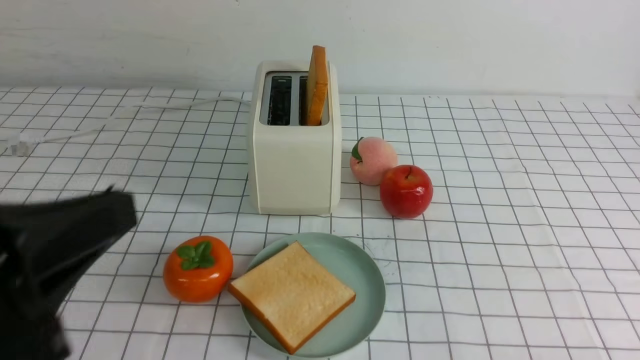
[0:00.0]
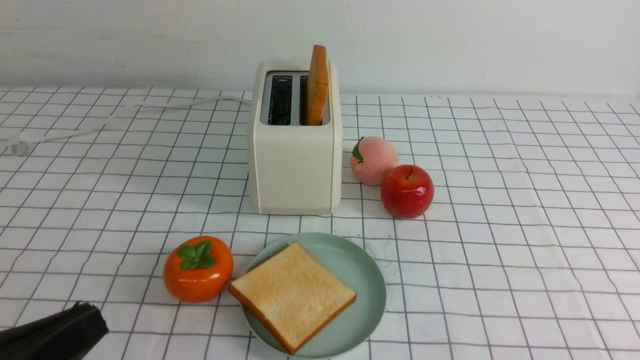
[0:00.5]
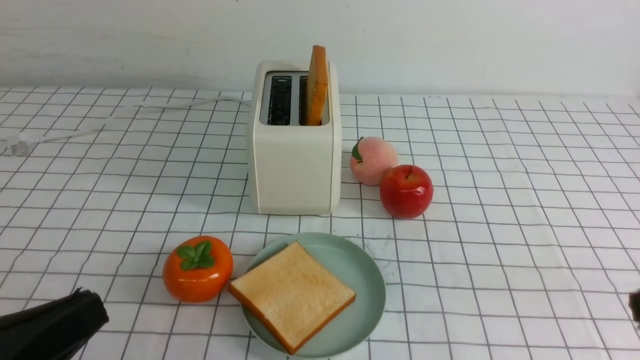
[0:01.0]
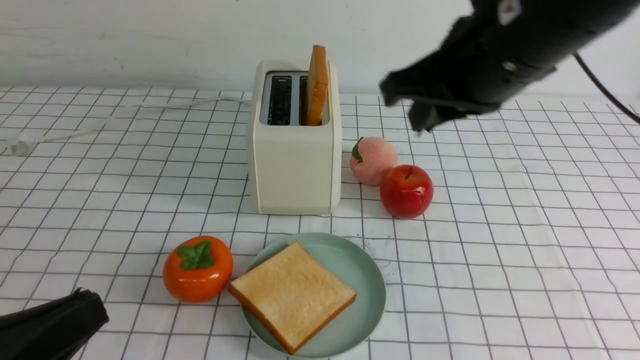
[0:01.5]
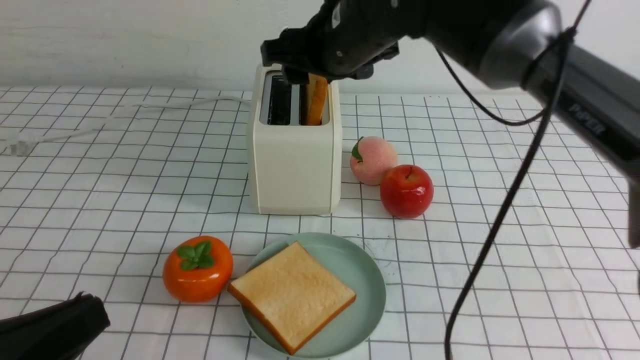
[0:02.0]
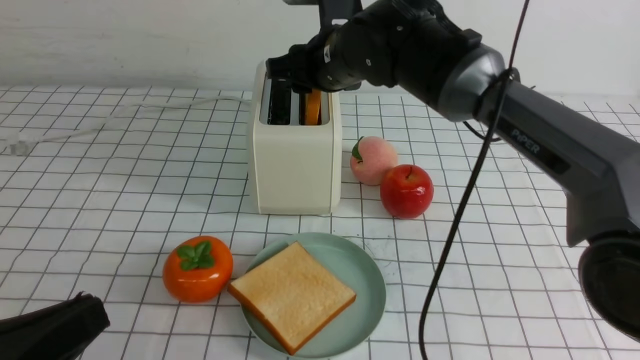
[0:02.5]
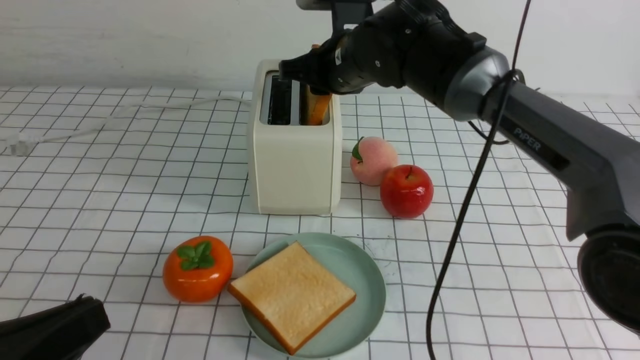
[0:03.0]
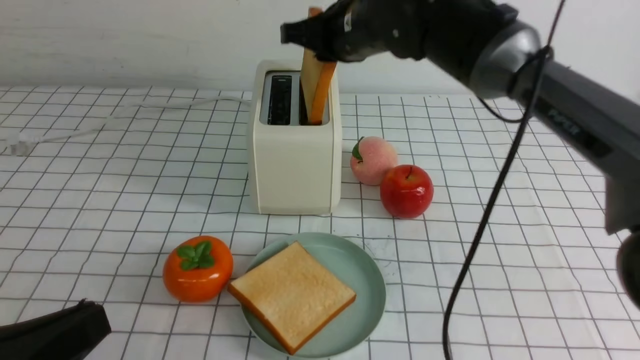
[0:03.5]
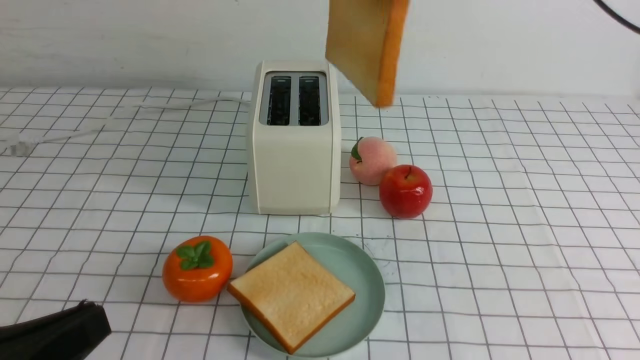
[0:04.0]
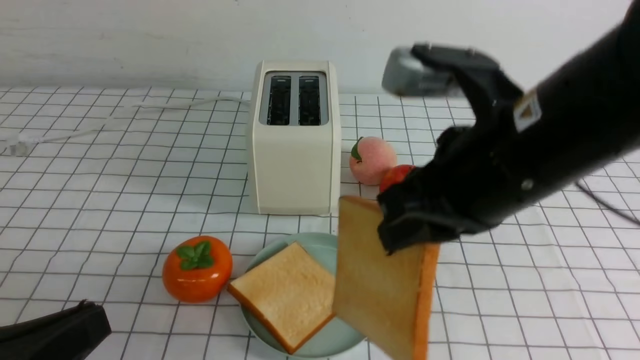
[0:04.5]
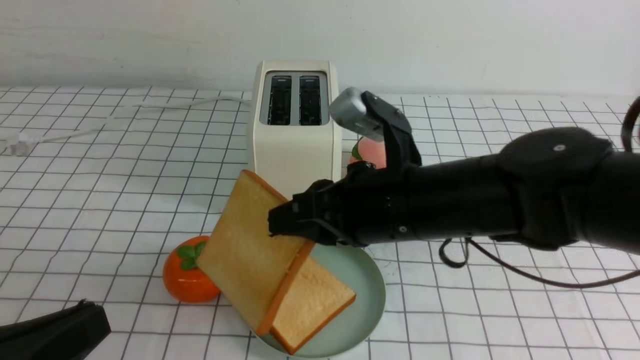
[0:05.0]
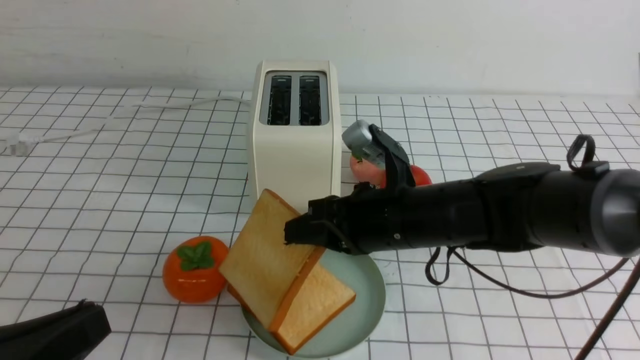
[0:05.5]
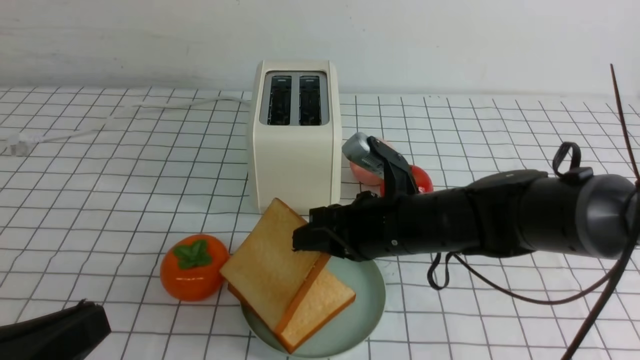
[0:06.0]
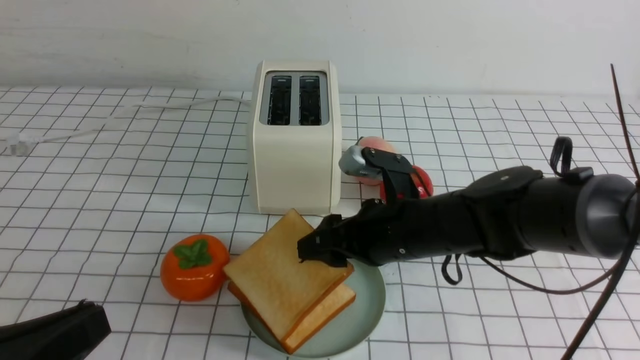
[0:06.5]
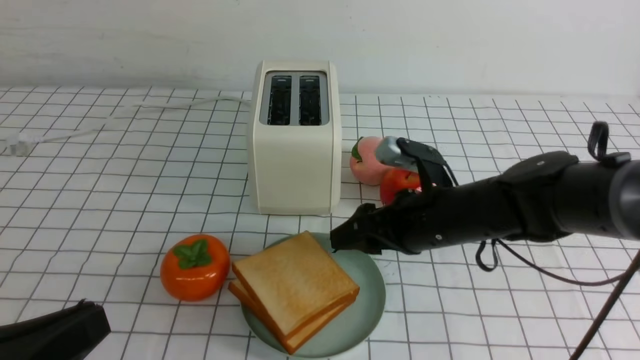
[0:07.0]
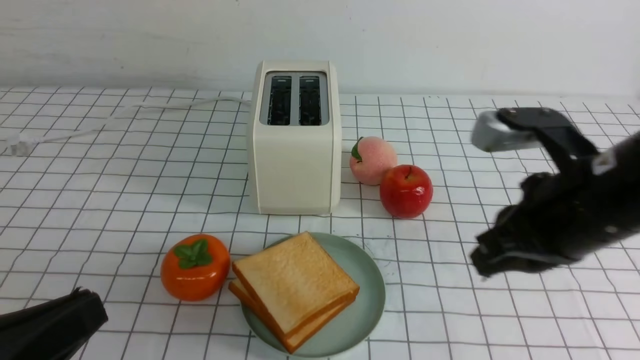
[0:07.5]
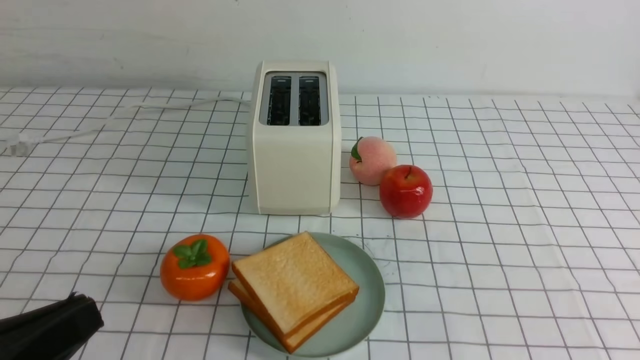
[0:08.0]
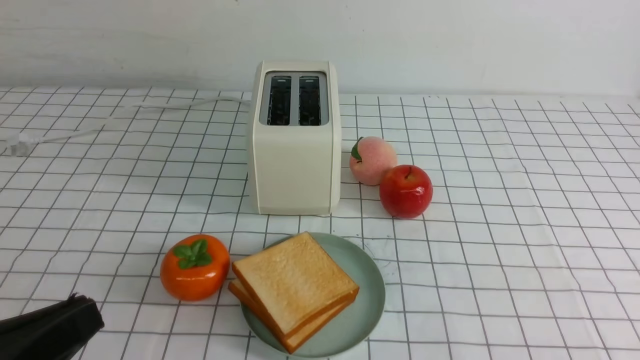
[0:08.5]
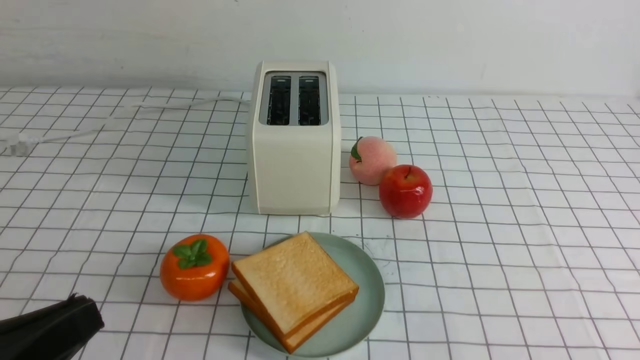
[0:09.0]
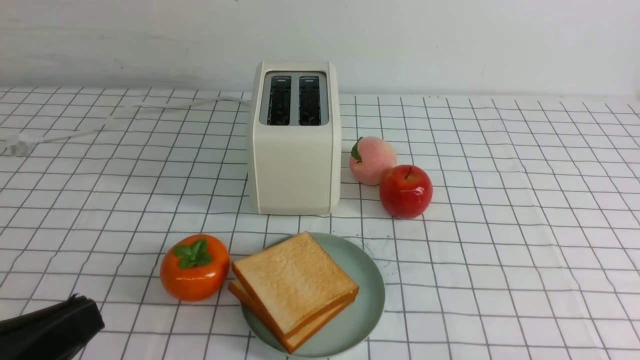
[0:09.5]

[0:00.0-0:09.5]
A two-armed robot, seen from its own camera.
Task of the whole recording: take toasted bread from bread machine on white checkered table place on plate.
Step, 0:00.0 to 0:03.5: use the right arm to take out a slice of bread.
Step, 0:04.0 to 0:07.0: use the right arm to put a slice of bread into the plate.
0:00.0 to 0:02.0: The right gripper moves forward, to the left and upward, some 50 cm, and opens up; the left gripper moves roughly 5 cm.
0:02.0 to 0:04.0: The right gripper is displaced upward, backward and to the right by about 15 cm, and closes.
0:04.0 to 0:05.5: The right gripper is displaced downward by about 25 cm.
0:05.5 to 0:07.5: The right gripper goes some 15 cm to the right, upward and backward, and opens, then closes once more.
0:07.5 to 0:09.5: The right gripper travels backward, downward and to the right by approximately 25 cm.

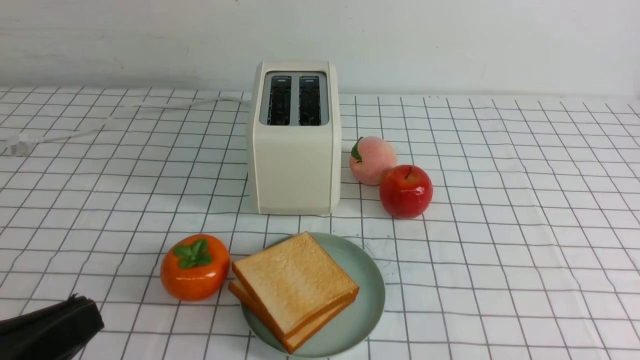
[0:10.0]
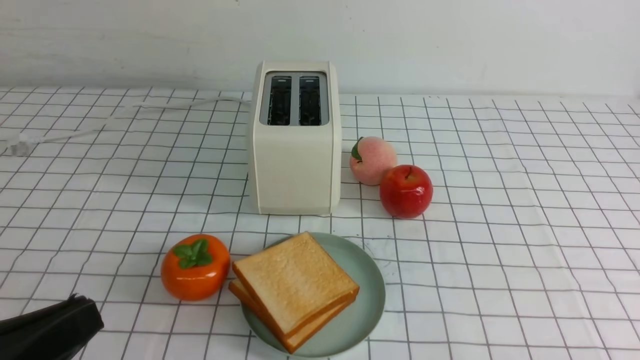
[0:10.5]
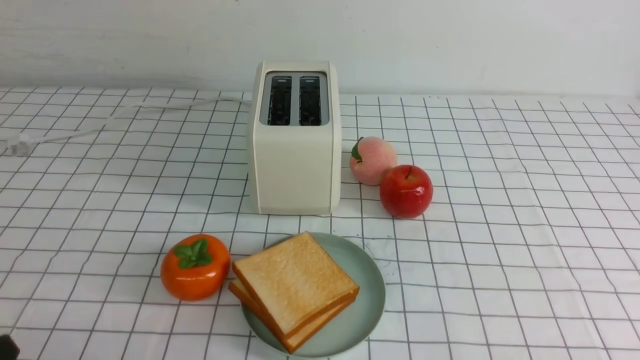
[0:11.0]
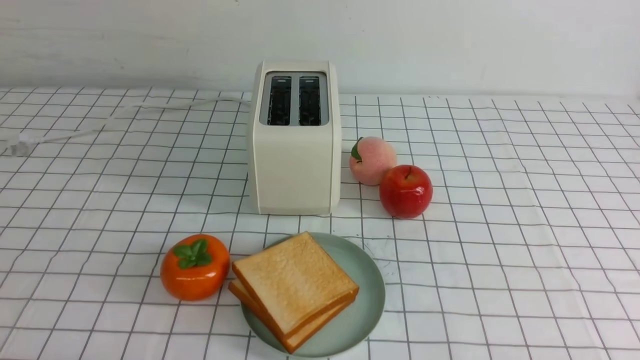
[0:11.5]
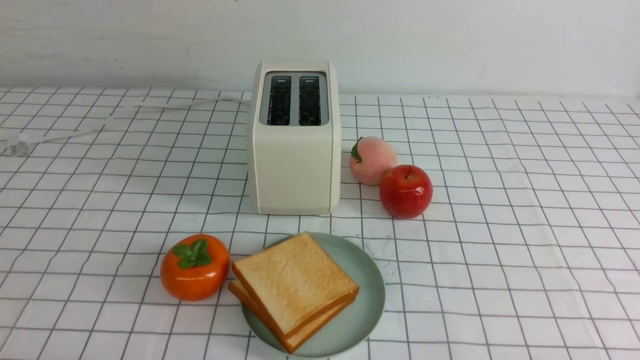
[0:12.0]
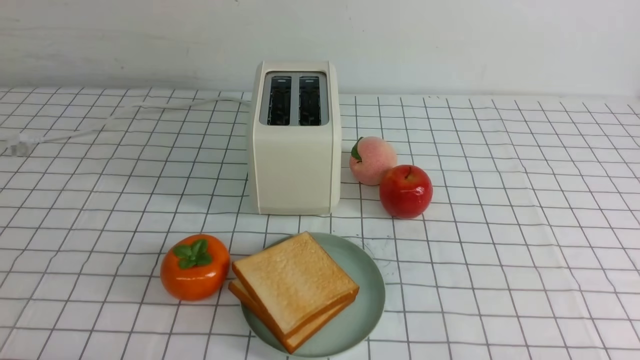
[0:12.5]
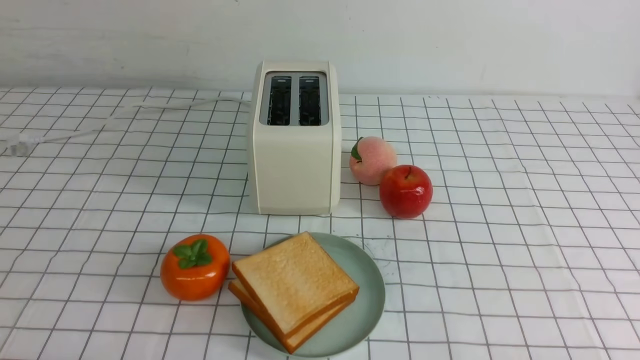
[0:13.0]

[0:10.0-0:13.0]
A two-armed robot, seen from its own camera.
Task of the whole recording: take toasted bread from bread machine on white checkered table place on plate.
0:10.0 to 0:11.5: The left gripper shifts some 10 cm downward.
0:11.5 to 0:13.0: Both grippers stay about where they are.

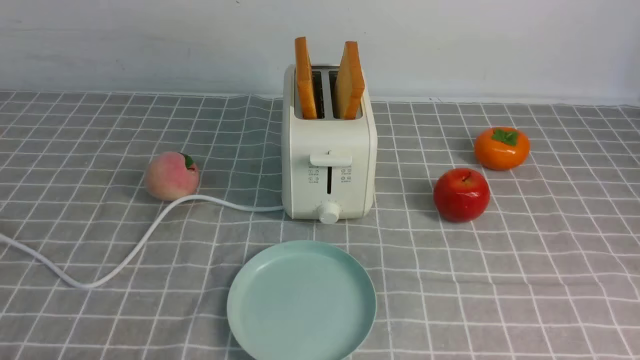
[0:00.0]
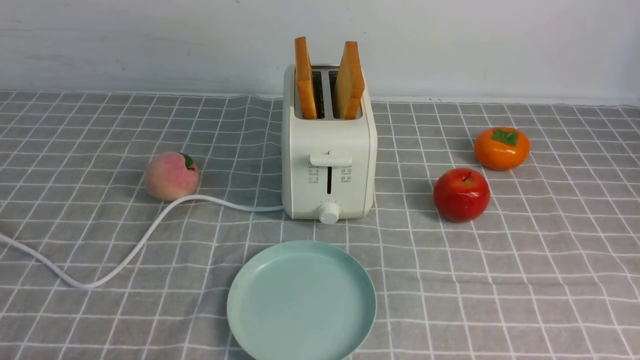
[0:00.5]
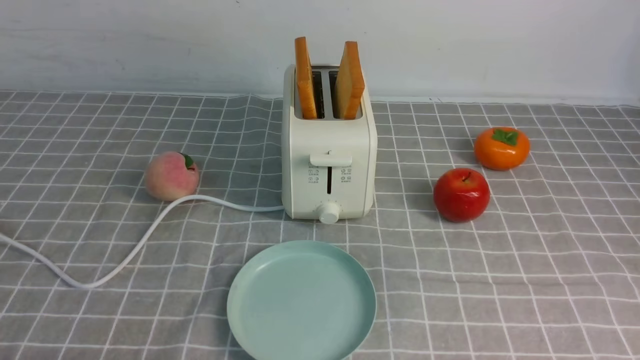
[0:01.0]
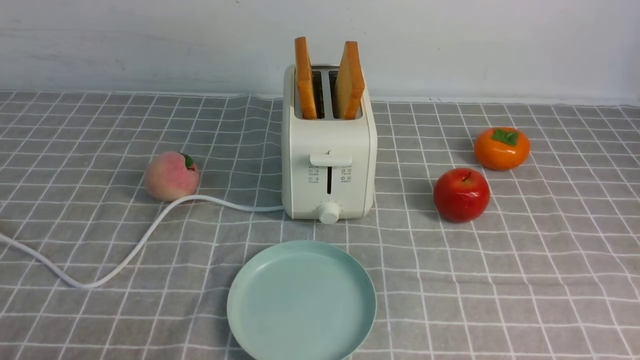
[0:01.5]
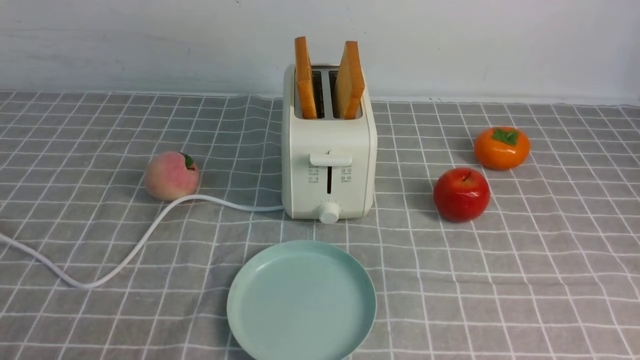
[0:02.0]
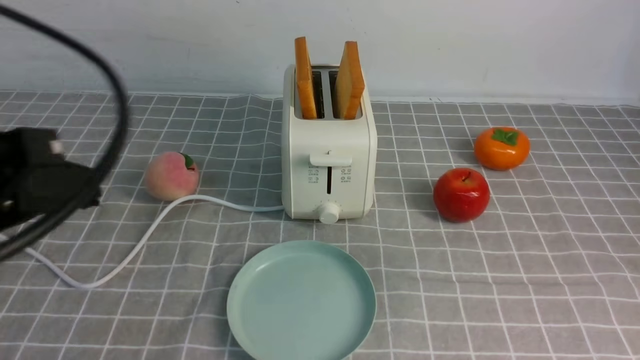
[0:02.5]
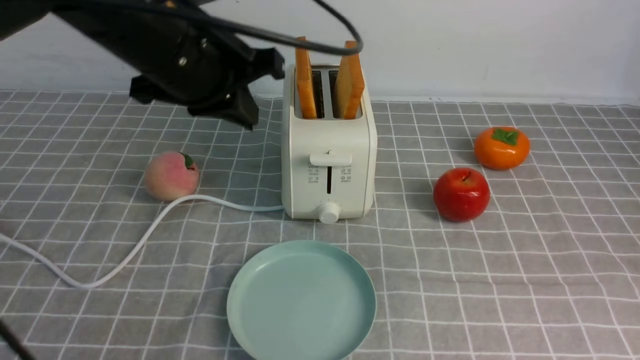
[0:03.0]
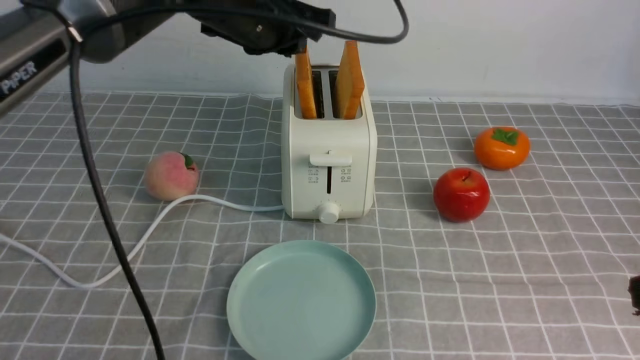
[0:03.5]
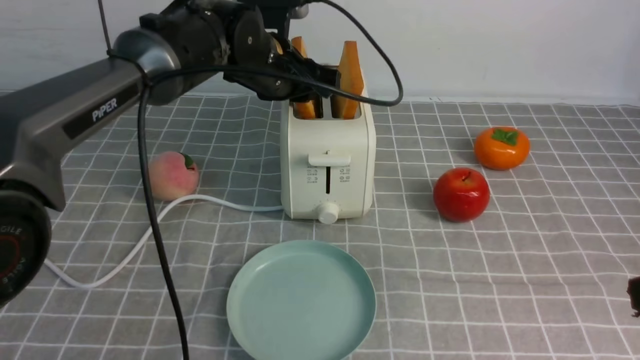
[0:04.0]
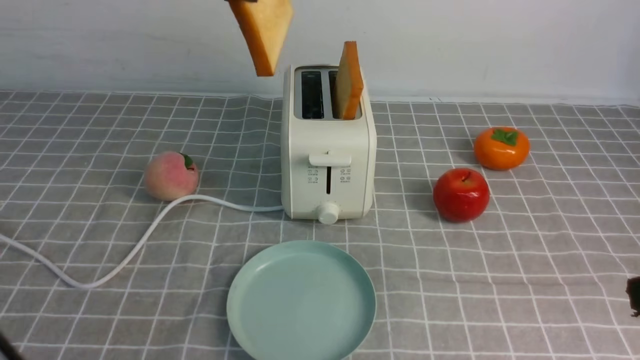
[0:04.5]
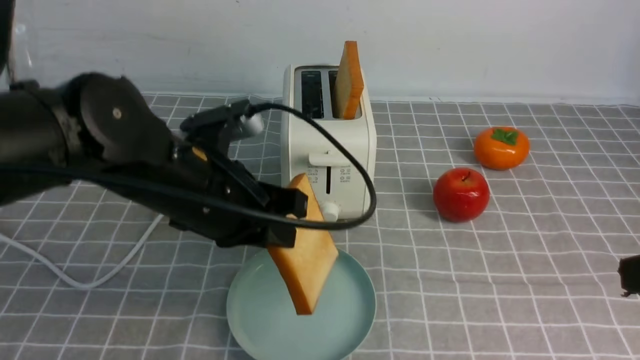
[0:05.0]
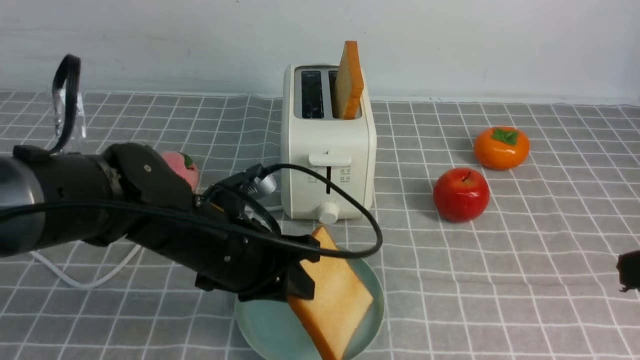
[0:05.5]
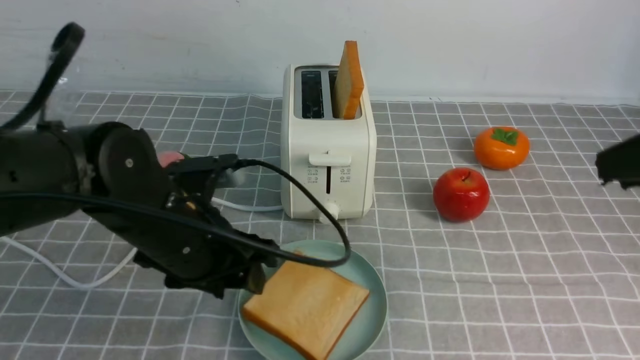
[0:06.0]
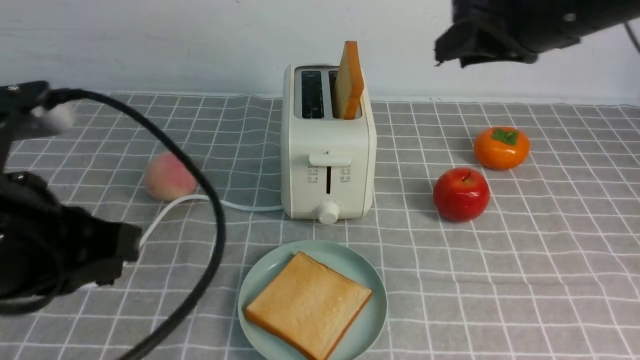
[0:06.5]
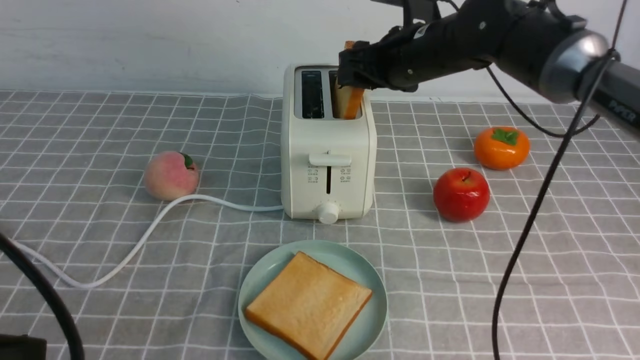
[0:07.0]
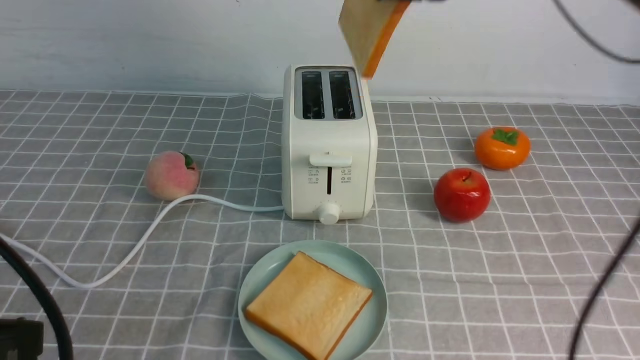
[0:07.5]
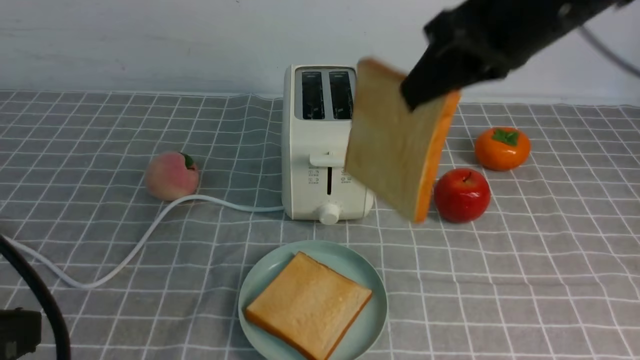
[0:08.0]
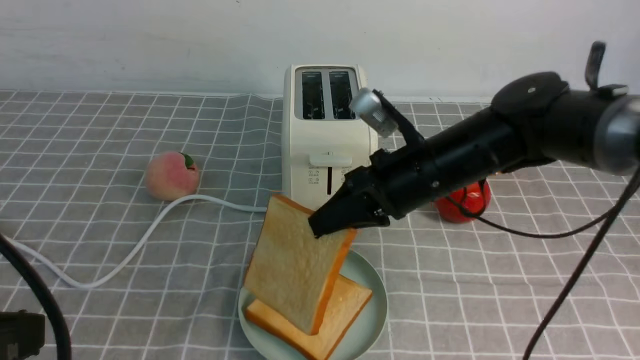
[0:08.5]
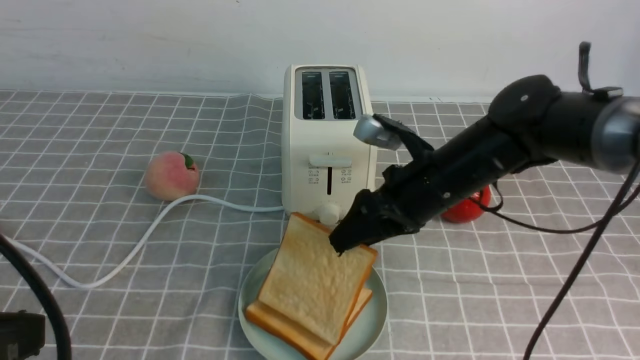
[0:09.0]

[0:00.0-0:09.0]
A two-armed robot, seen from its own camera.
Task of the whole recording: take toasted bread from bread machine on grey coffee table place on plate.
Step, 0:00.0 to 0:04.0: use the left arm to take out a slice of bread.
Step, 0:04.5 to 0:06.0: use the left arm to put a slice of bread into the empty plate.
Step, 0:06.5 to 0:07.5: use the right arm to take out a slice of bread.
0:02.0 to 0:04.5: The right gripper moves upward and forward, some 10 cm. The left gripper moves forward, to the right and upward, some 35 cm, and opens and closes again.
0:04.5 to 0:07.0: The left gripper moves backward and to the left, about 30 cm, and opens and closes again; the right gripper is displaced forward and to the left by about 35 cm, and opens its fingers.
0:07.0 to 0:09.0: The right gripper shifts roughly 10 cm backward, moves some 15 cm upward and comes back, and closes and opens again.
